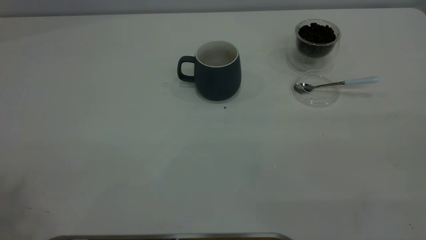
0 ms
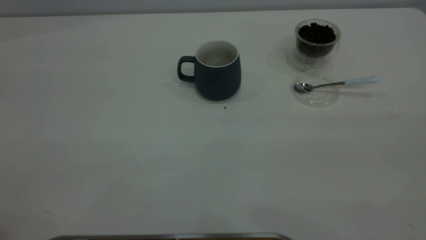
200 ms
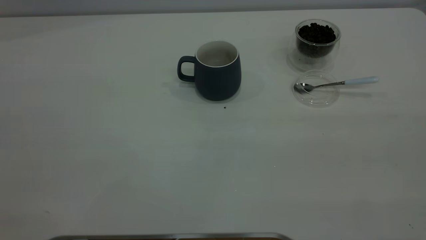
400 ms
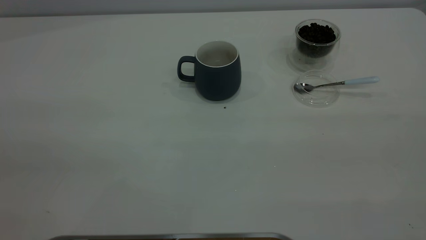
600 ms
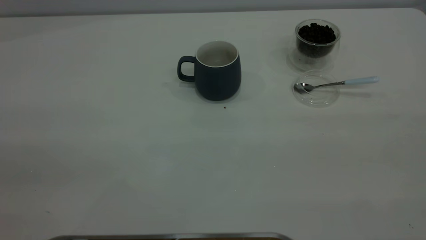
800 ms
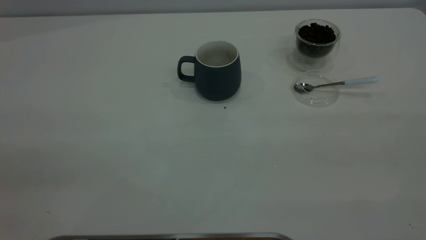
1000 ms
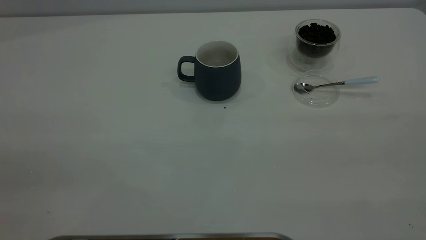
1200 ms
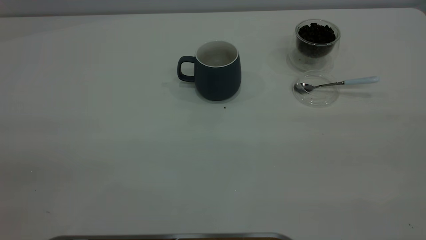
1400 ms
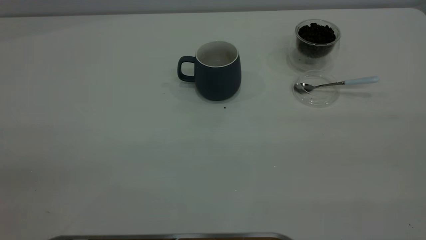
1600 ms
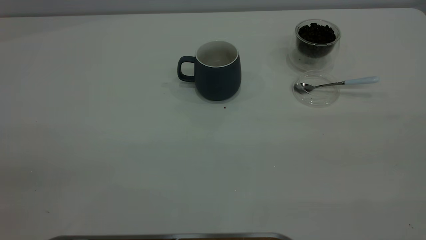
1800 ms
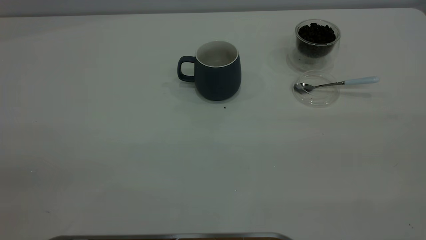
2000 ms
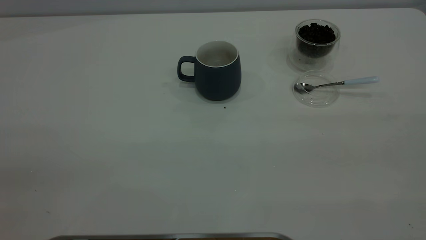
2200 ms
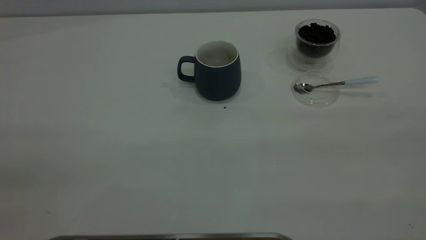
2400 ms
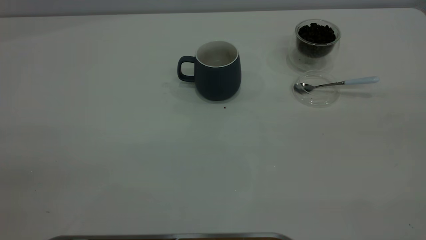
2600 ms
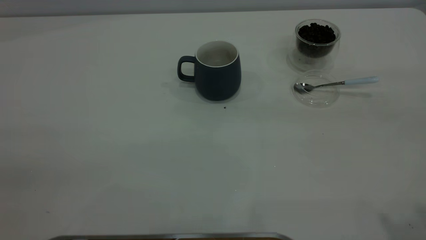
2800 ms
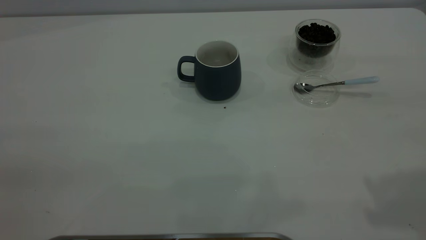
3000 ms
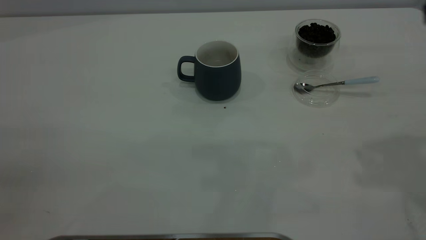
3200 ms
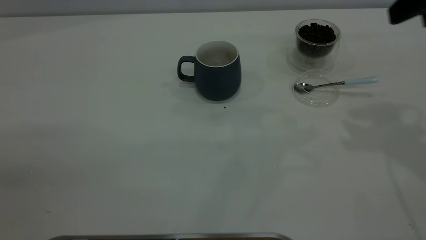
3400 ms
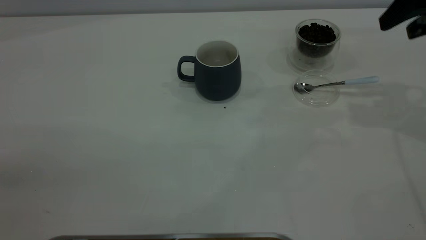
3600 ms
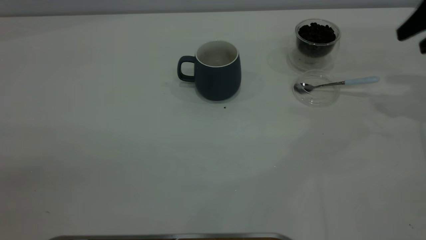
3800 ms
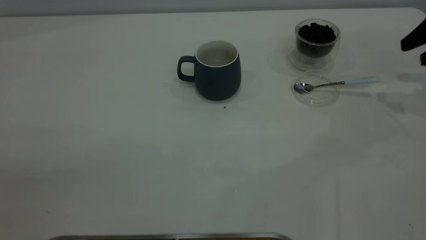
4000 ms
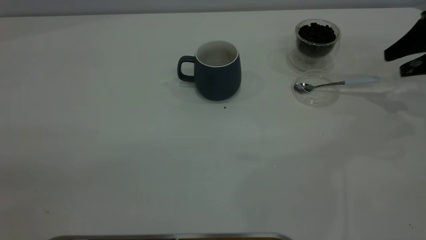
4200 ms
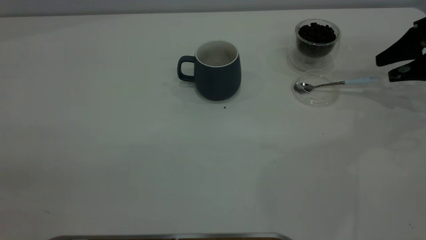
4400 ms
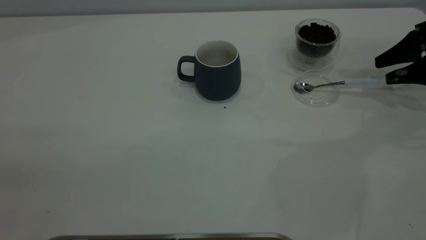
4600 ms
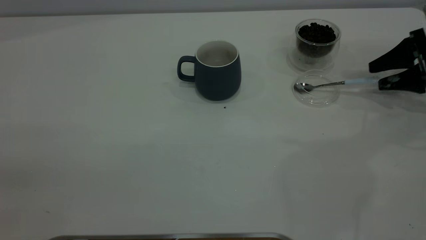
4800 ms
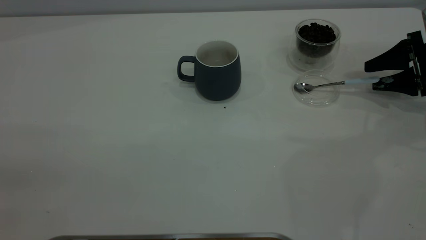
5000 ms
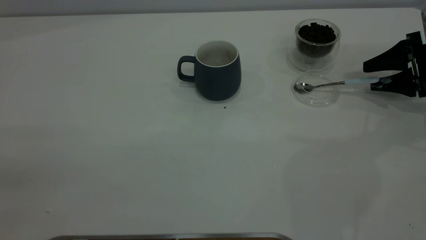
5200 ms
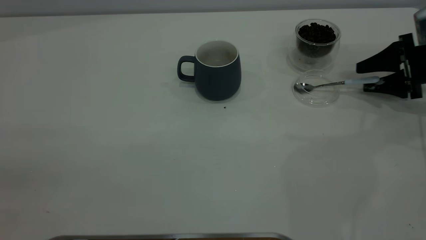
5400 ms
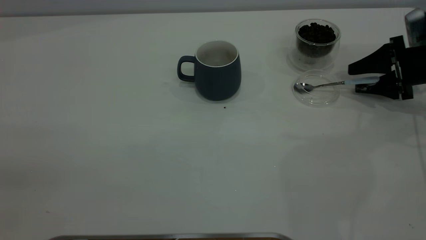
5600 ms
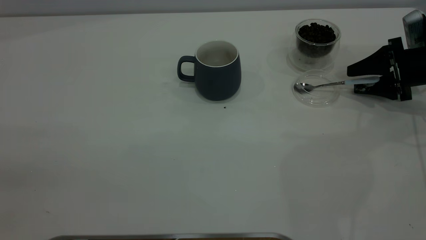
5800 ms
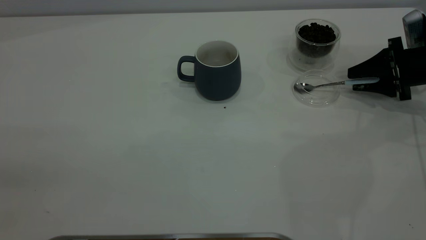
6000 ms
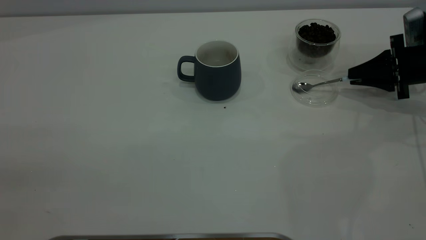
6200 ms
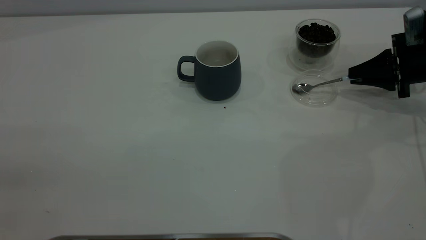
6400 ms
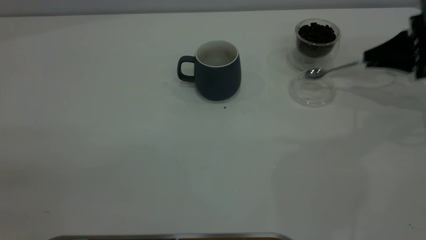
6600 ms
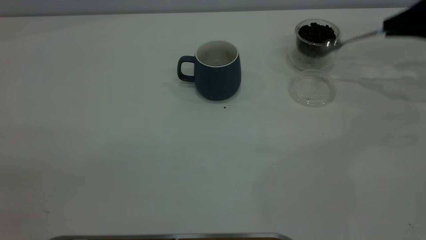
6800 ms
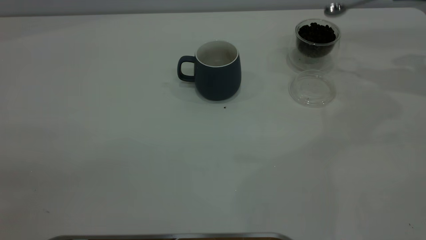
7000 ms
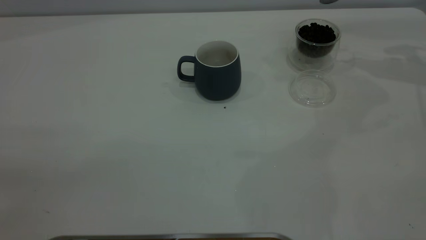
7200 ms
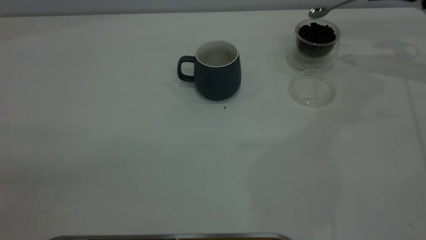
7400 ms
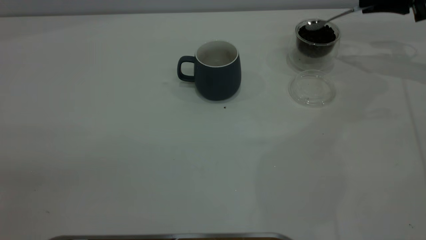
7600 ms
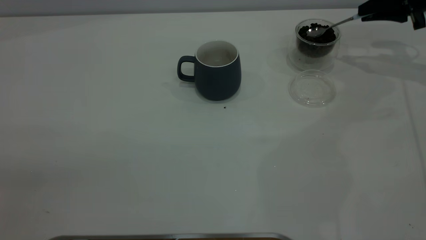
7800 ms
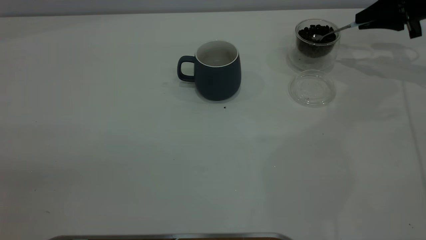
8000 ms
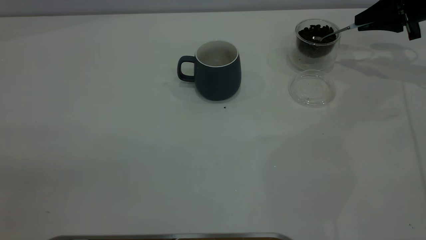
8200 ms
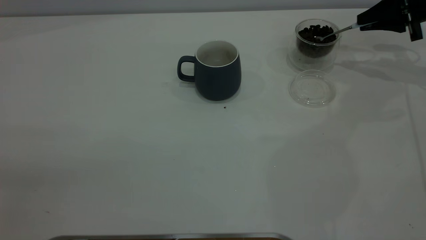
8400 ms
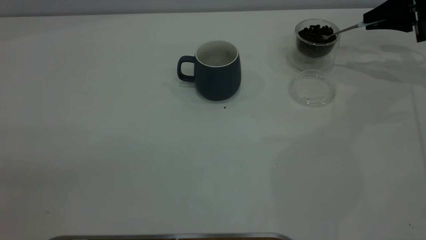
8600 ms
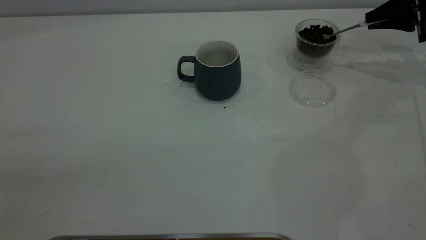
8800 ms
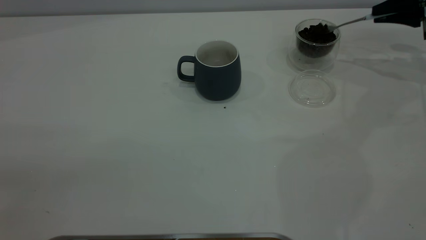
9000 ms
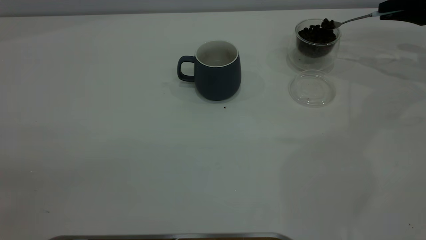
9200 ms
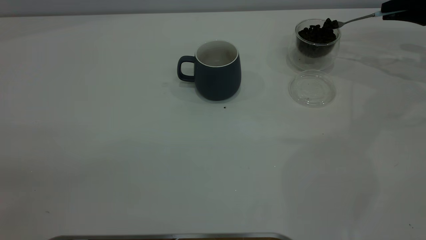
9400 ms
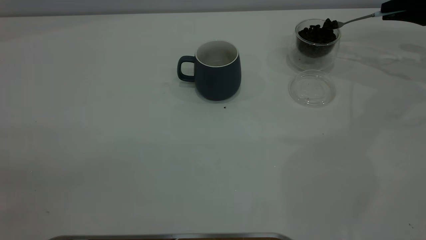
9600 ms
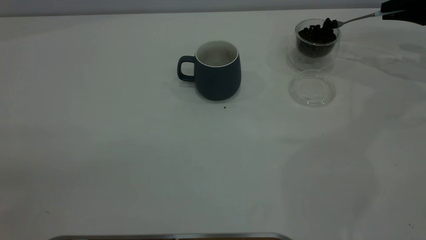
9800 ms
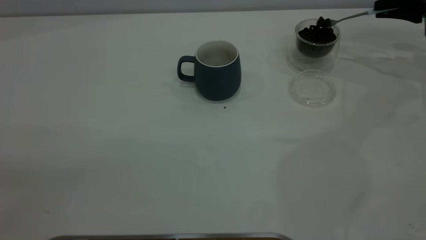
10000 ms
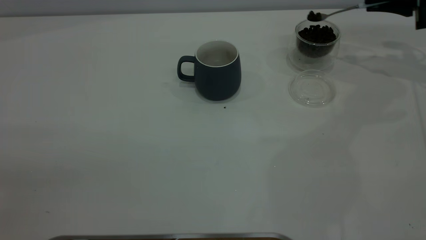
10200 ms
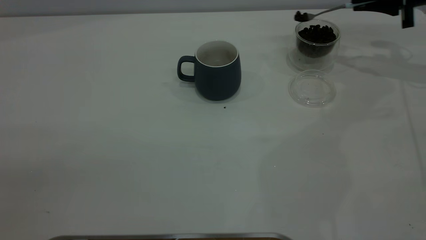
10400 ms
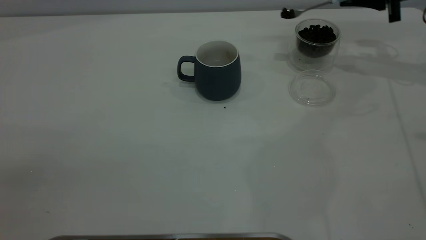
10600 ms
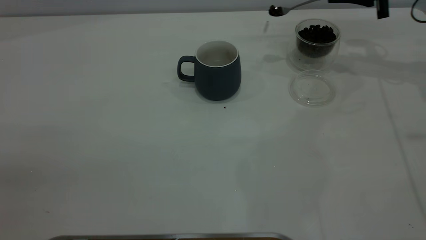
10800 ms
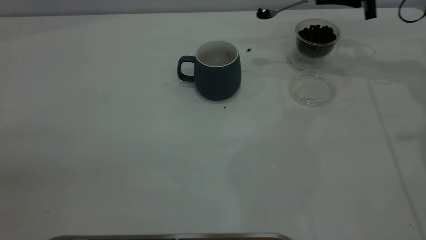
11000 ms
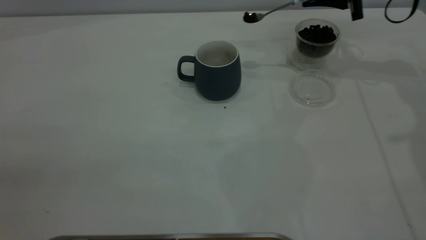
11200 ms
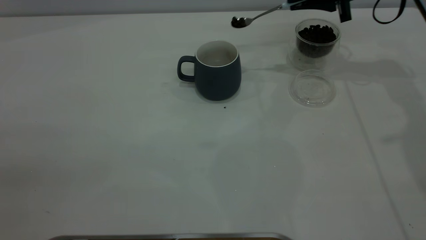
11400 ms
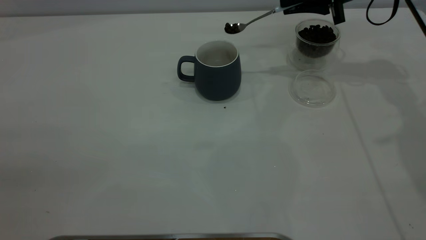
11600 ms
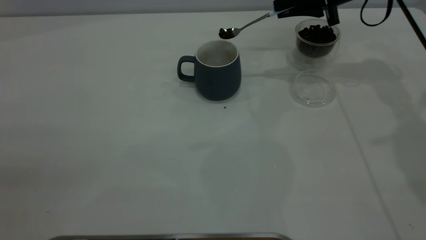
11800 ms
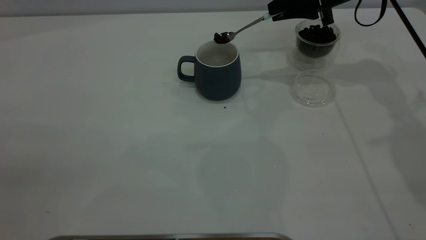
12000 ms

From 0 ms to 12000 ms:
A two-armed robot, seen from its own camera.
Task of the whole recording: the left gripper place the grey cup in the center of the table, the right gripper take the blue spoon from the cup lid and scoop out the coffee beans from the coffee cup and put them into the grey cup, the right gripper put the spoon back into the cup lid.
Step, from 0 ms to 6600 ms: Pick up the spoon.
From 3000 ms to 4400 ms: The right gripper shifts some 35 cm downward, forward and to the right.
From 4400 ms to 6000 ms: The right gripper goes some 5 cm downward, and closes up.
From 6000 ms to 7600 ms: The right gripper is displaced upward and forward by approximately 15 cm, and closes its fingers.
From 7600 ms to 10400 ms: The grippers stay close to where they were, moving slightly.
From 10400 ms to 12000 ms: The right gripper is displaced to the left by roughly 15 cm.

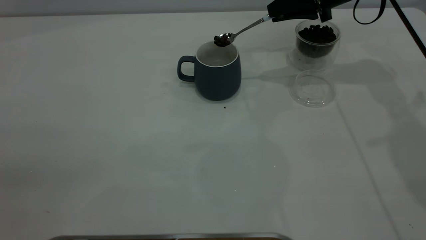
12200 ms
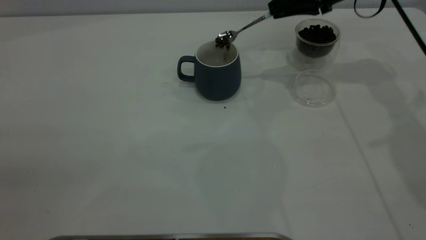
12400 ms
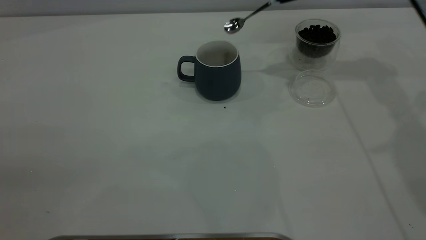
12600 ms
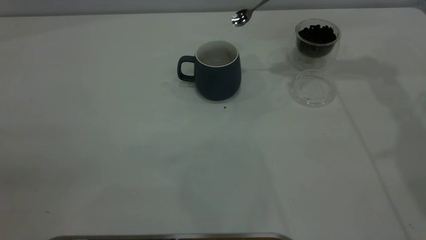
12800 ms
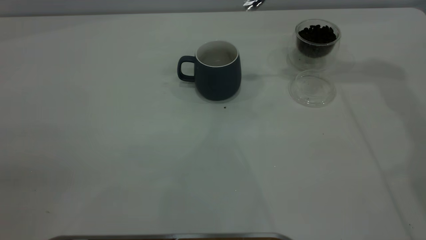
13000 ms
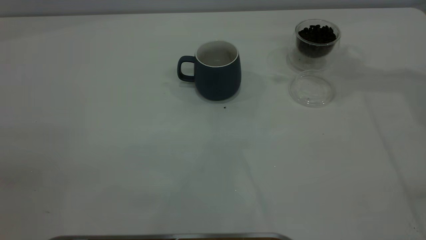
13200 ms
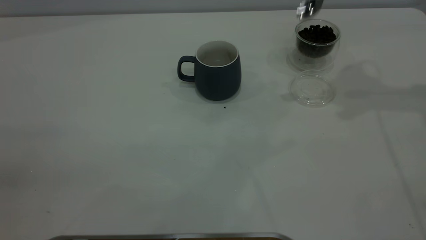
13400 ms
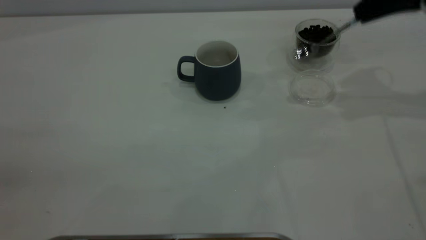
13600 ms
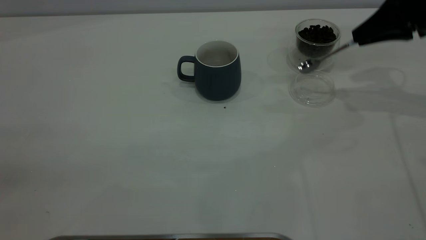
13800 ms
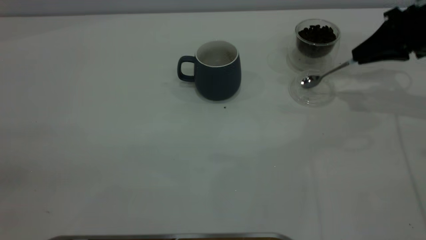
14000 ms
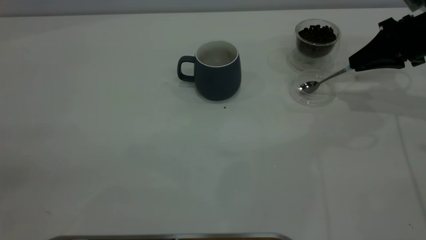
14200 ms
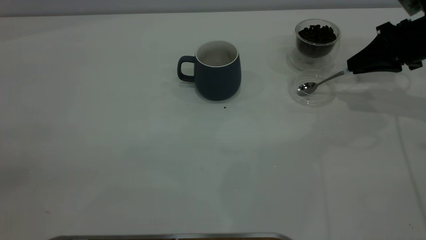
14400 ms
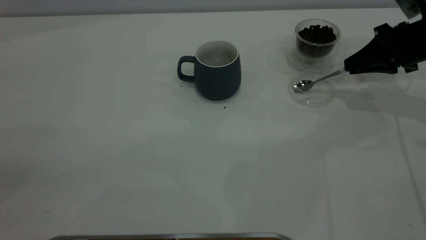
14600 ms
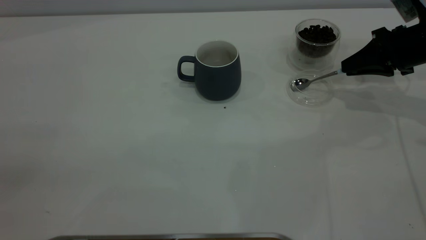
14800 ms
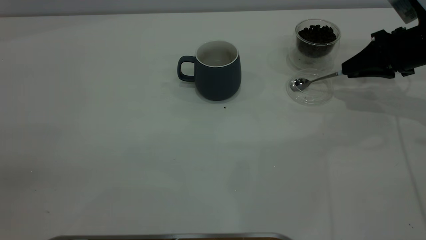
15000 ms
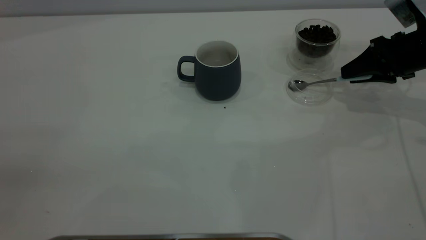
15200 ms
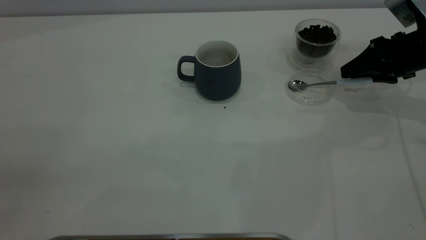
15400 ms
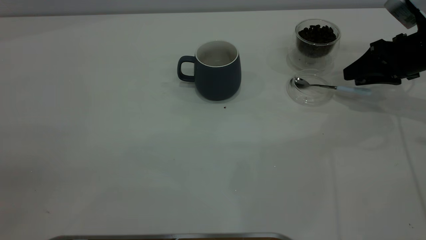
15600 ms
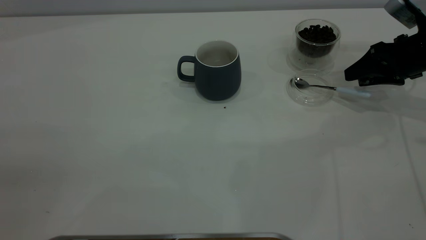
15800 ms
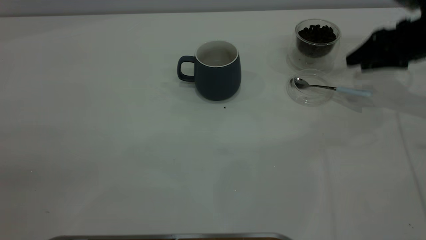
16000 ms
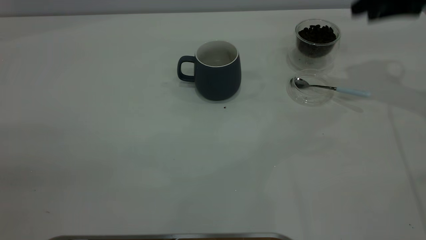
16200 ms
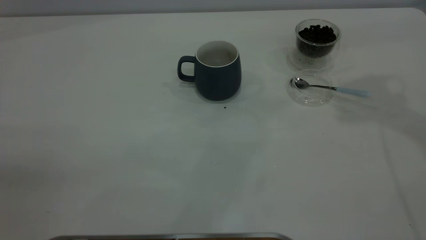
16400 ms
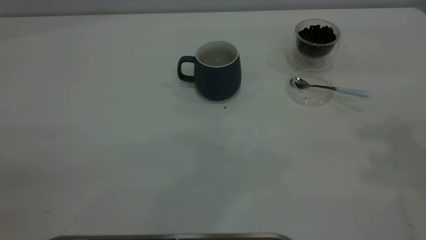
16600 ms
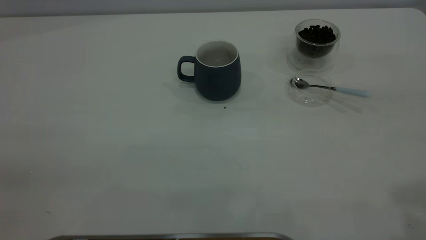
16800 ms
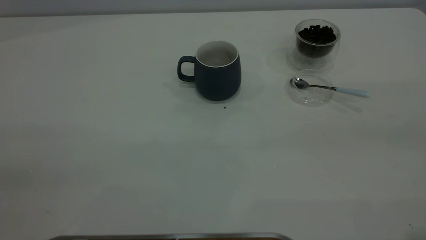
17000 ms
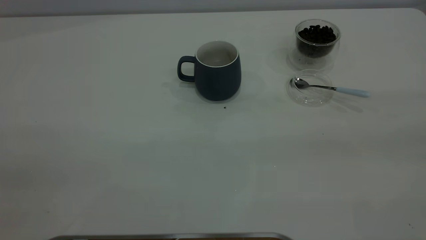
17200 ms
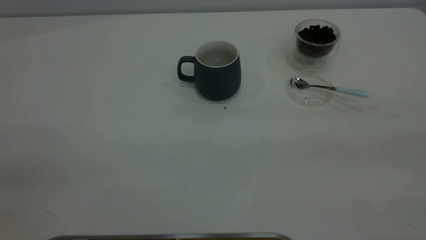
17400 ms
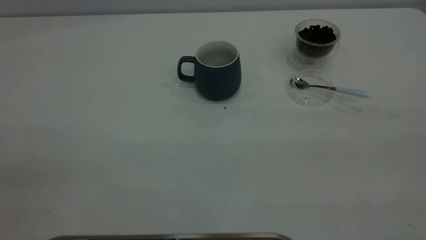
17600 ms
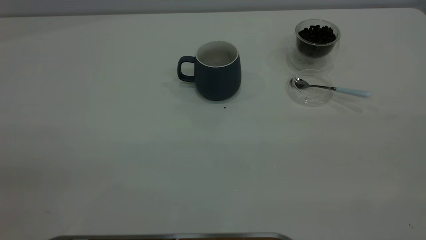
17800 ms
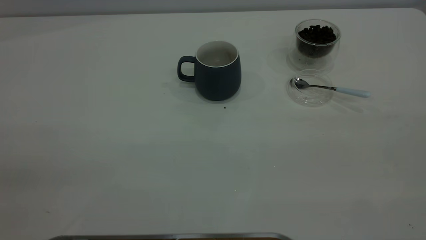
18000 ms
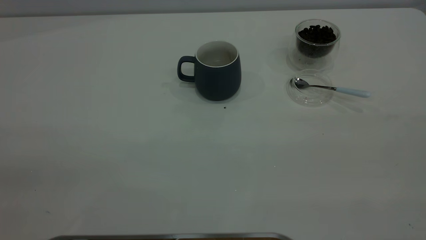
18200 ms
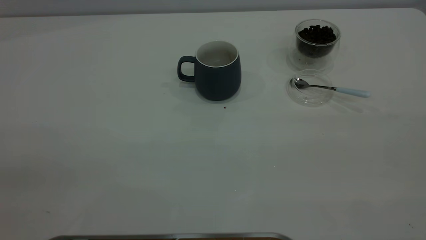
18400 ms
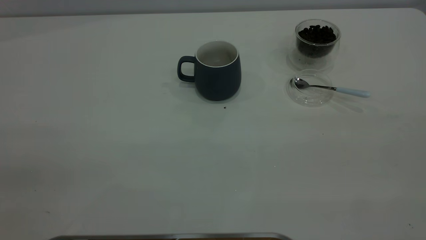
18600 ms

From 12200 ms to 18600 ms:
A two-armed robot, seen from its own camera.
Task of the whole recording: the left gripper place the grey cup in the center of the table, the right gripper take the blue spoon from the cup lid and scoop out the coffee beans from the coffee cup and put them into the grey cup, the right gripper put the spoon back into the cup lid.
Step, from 12600 ms to 16000 ms: Place the spoon back in its original place.
From 12200 ms to 13800 ms: The right gripper shifts approximately 15 cm to the right and backward, and moves some 15 cm upward and comes back.
From 13800 ms to 15400 ms: The right gripper goes some 10 cm downward, and opens its fingers.
From 15400 ms to 17000 ms: The right gripper moves backward and upward, roughly 40 cm.
